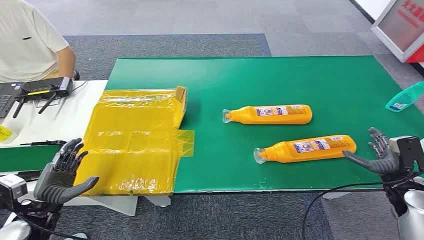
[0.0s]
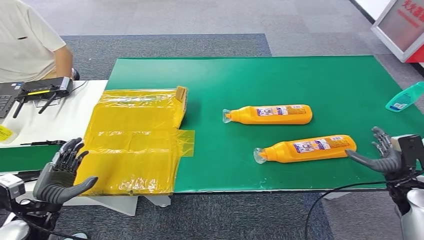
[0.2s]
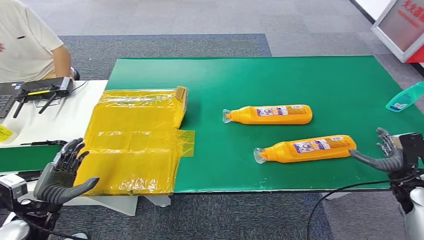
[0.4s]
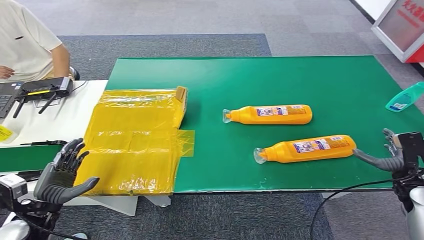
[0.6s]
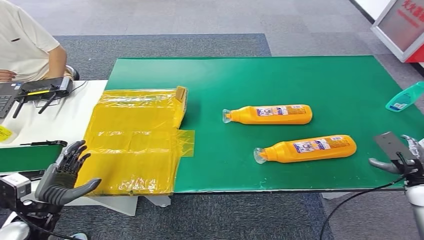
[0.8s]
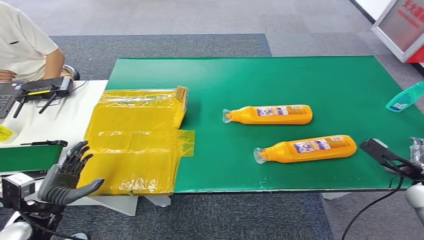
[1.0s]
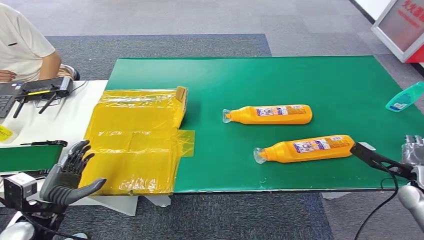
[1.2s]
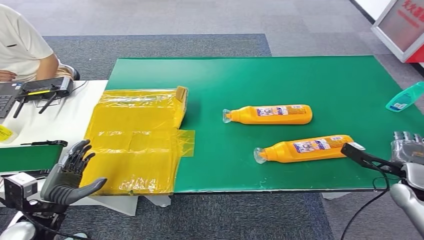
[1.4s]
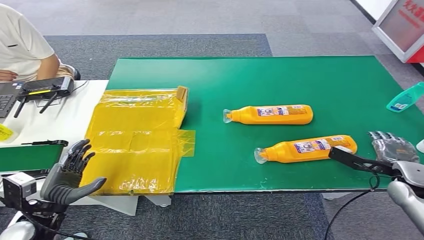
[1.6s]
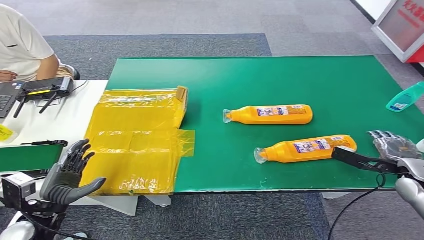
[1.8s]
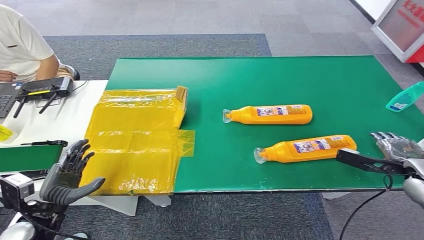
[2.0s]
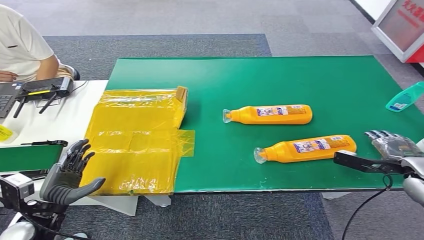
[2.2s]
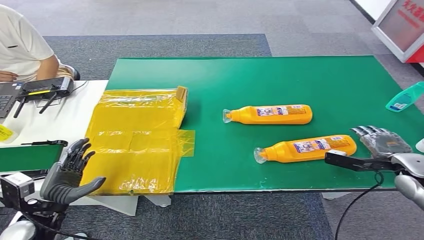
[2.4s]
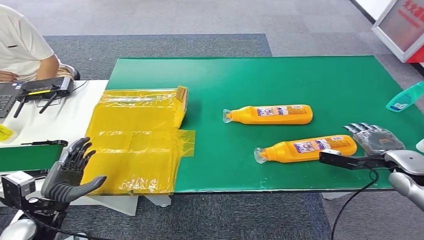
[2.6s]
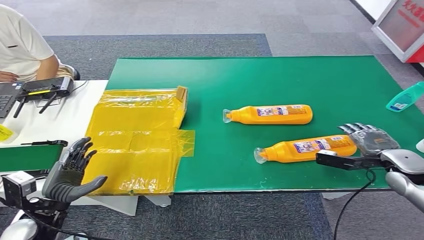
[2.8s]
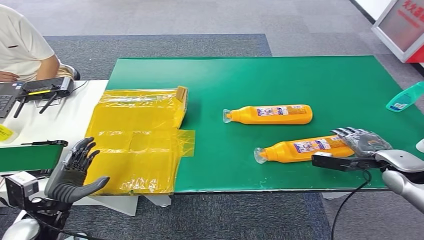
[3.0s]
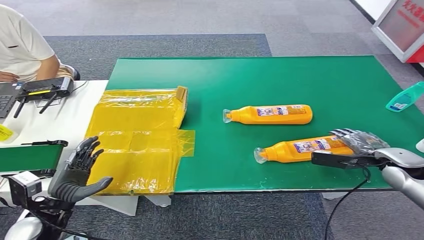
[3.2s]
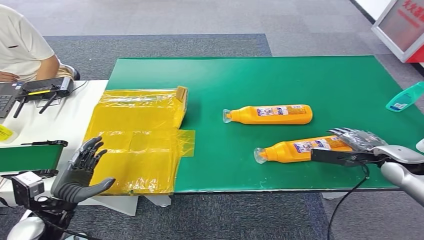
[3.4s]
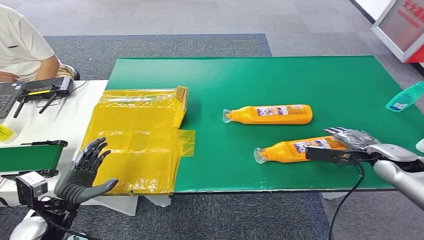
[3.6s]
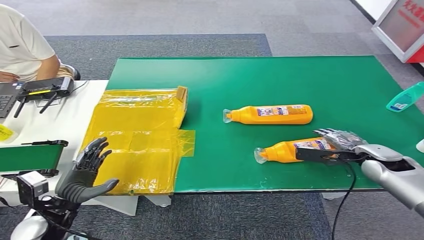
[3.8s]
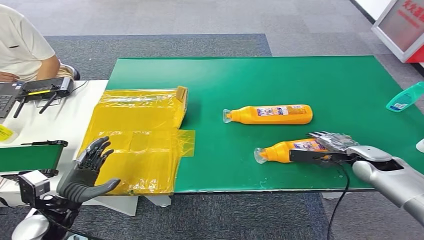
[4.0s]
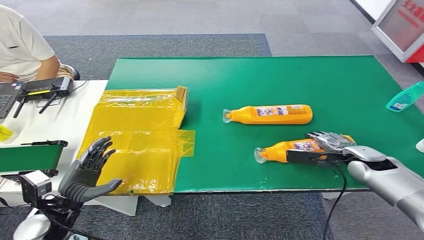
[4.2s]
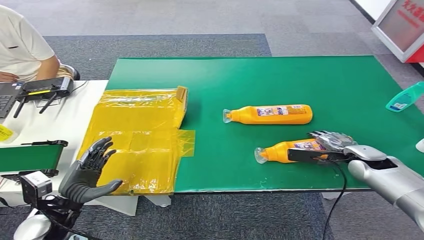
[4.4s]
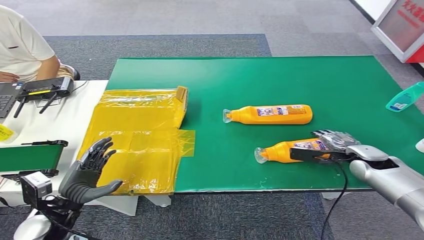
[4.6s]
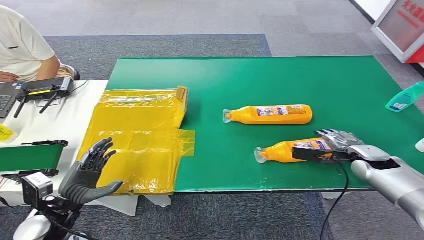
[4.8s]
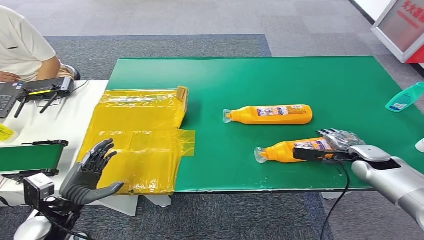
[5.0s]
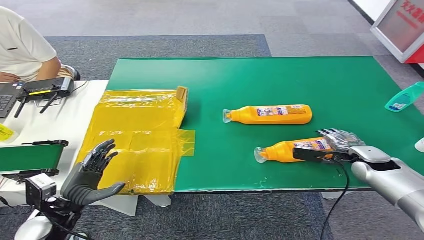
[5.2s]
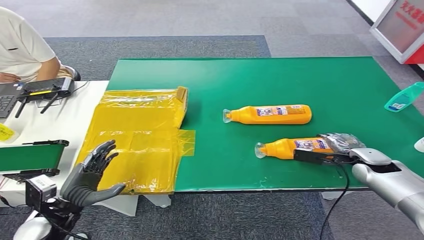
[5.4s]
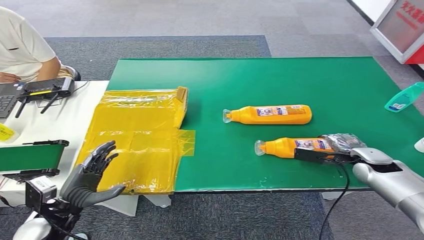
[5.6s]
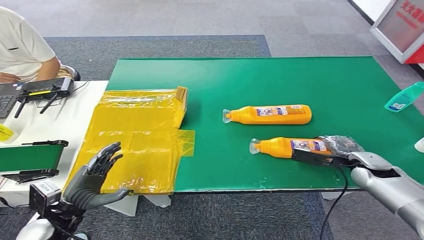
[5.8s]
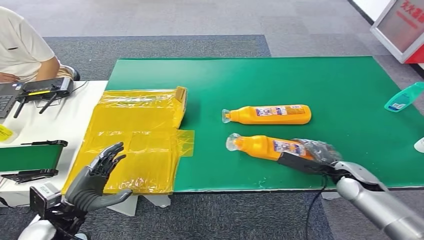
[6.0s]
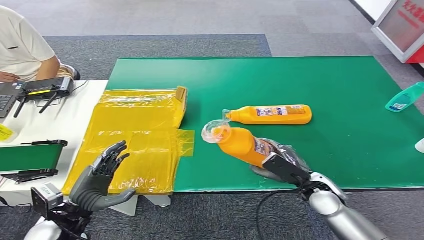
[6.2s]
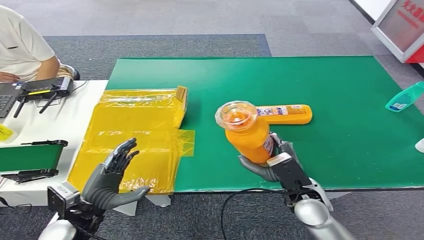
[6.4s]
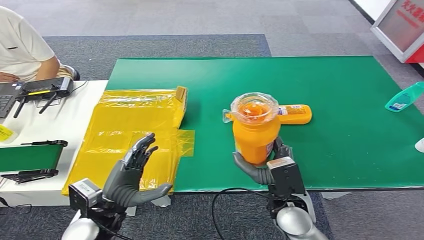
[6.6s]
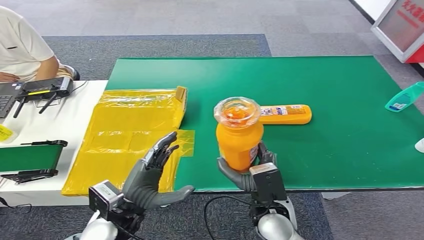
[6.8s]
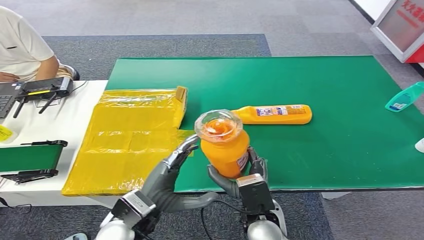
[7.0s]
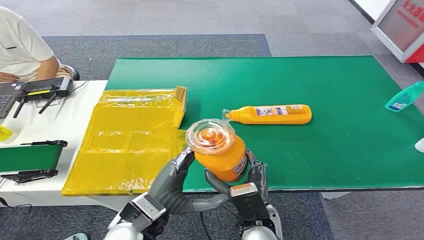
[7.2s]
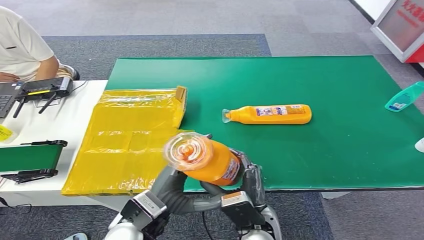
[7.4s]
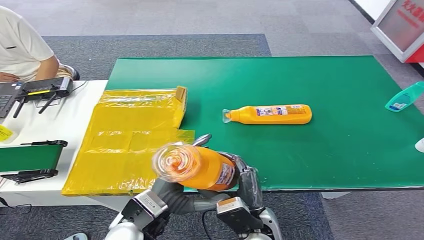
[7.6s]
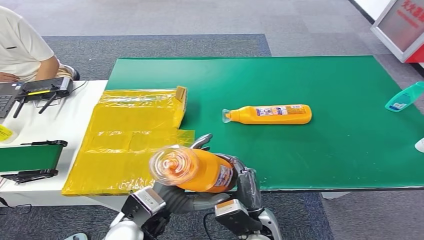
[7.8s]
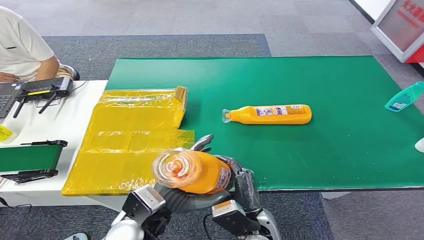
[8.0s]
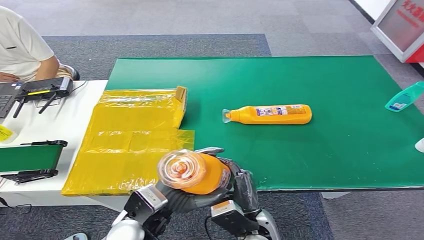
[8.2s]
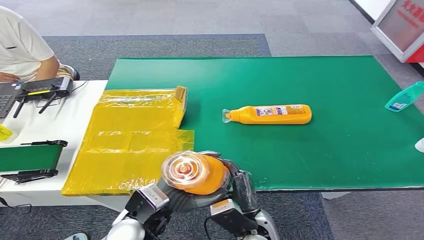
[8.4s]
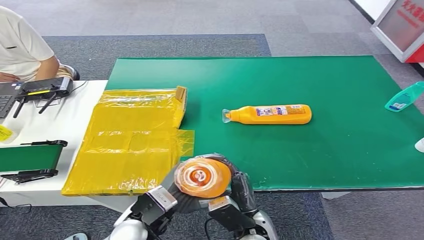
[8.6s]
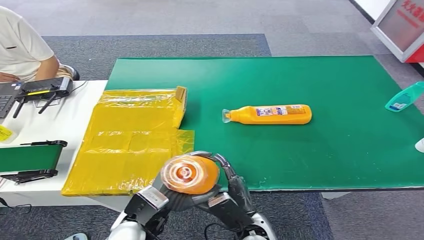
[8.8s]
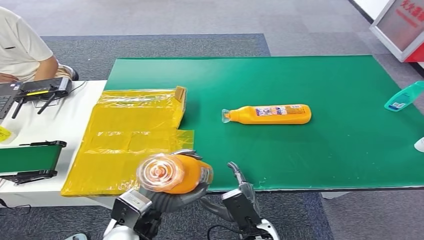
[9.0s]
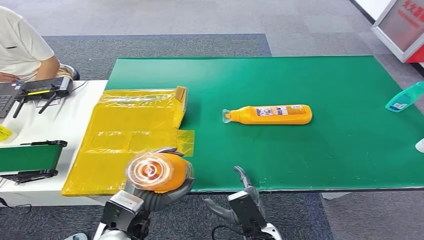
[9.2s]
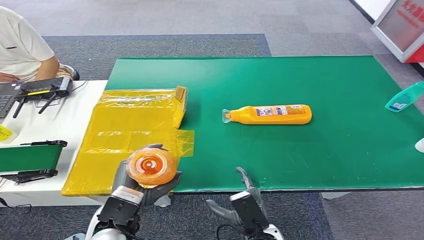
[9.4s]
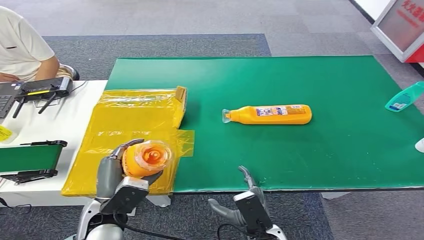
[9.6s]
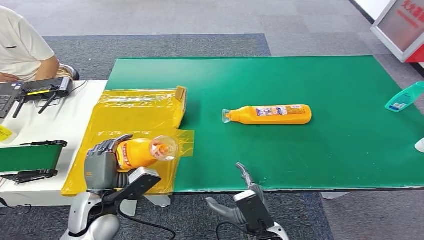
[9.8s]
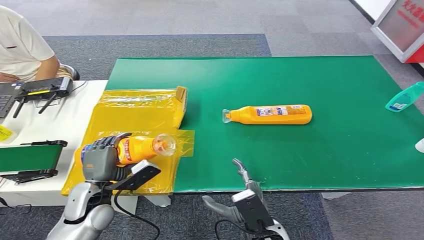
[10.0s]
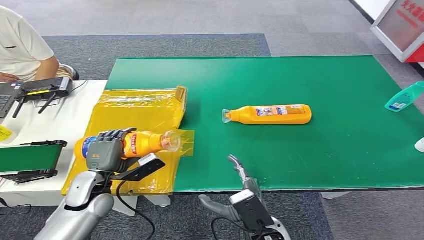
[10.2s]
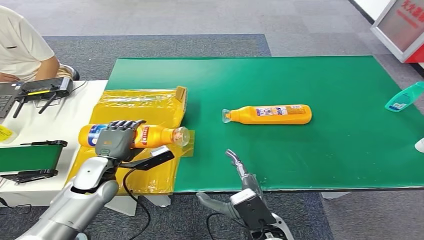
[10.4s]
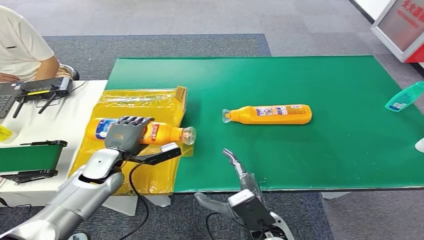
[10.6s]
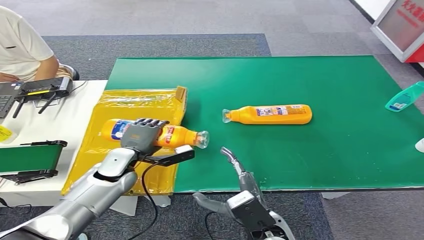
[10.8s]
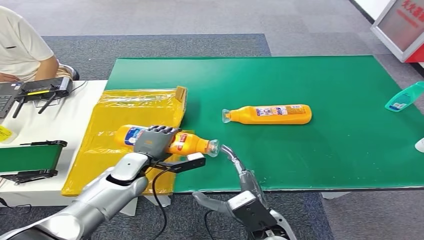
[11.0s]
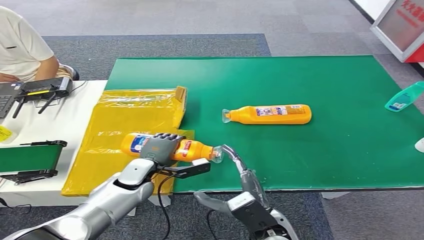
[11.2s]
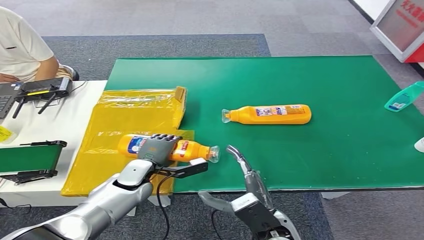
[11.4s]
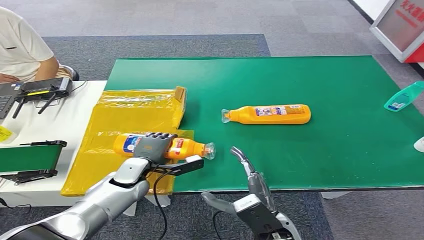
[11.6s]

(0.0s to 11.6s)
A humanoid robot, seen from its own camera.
Step, 0.0s - 7.0s: Pick up the bottle from the table.
1.4s - 2.8s: The right hand shifts by some 5 cm.
2.8s - 4.4s: The right hand heads to the left, covering approximately 5 cm.
4.4s - 5.8s: The hands move only a little.
7.2s - 8.8s: The right hand ends up about 5 cm from where it was.
8.8s - 10.2s: The left hand heads to the left and forward, covering roughly 15 cm.
10.2s - 11.6s: The left hand travels to the right and forward by about 10 cm.

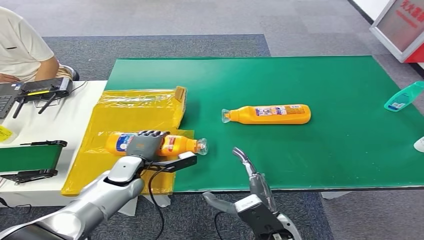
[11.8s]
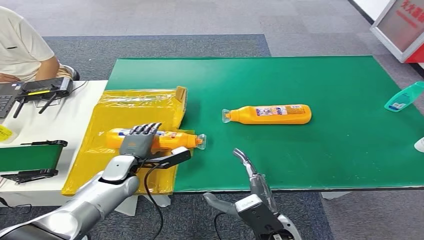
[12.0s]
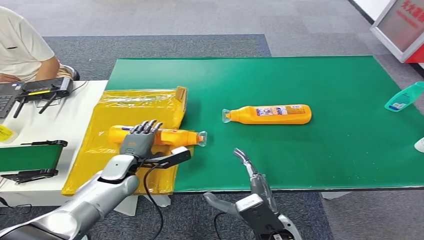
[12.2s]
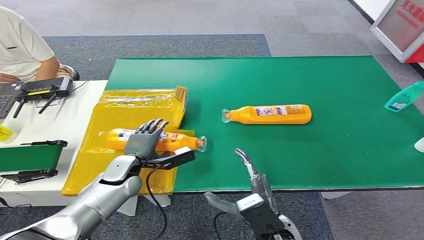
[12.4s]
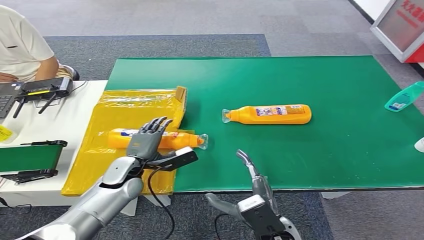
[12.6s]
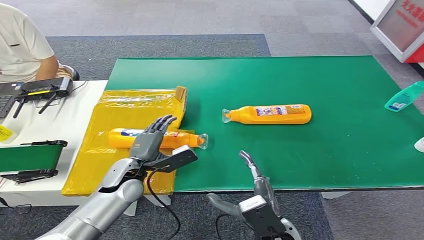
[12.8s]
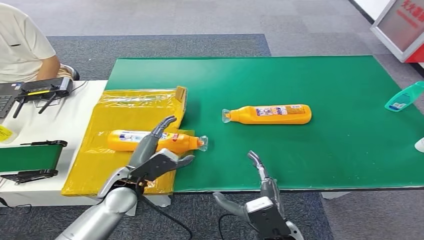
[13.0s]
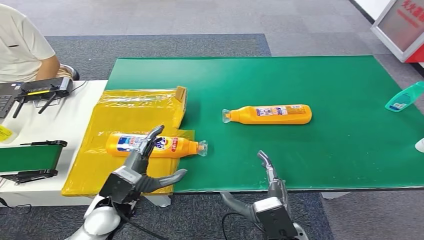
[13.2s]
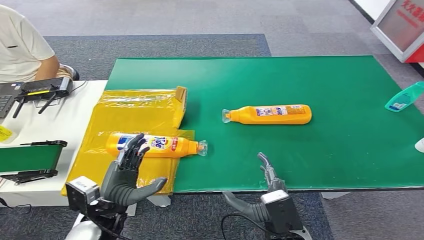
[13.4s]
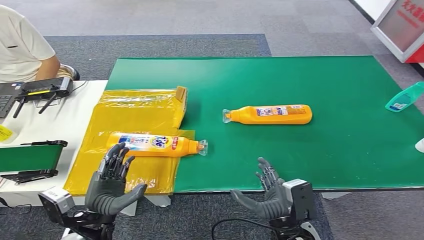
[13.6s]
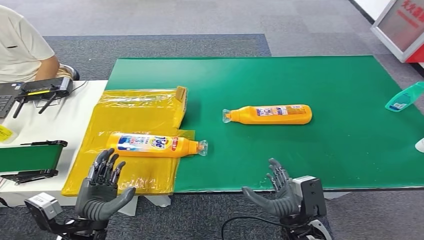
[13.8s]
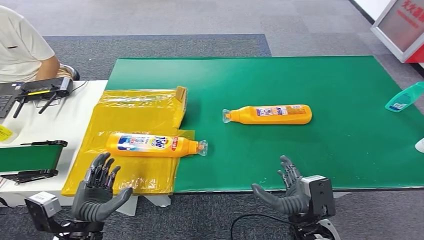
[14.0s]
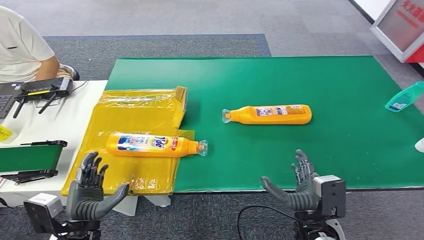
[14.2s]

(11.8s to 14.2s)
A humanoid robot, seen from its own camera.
Step, 11.8s - 14.2s: Turn the bottle to the front side.
11.8s - 13.0s: The left hand heads backward and upward, covering roughly 10 cm.
13.0s - 14.2s: The right hand is displaced to the right by about 5 cm; the left hand shifts roughly 15 cm backward and to the left.

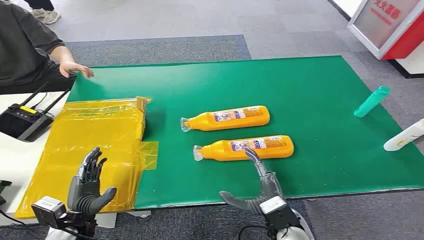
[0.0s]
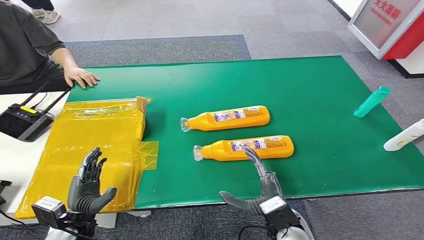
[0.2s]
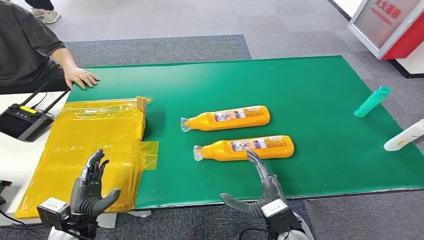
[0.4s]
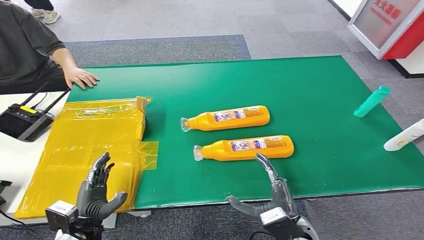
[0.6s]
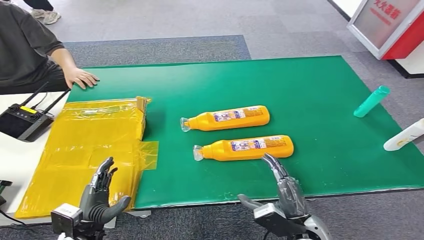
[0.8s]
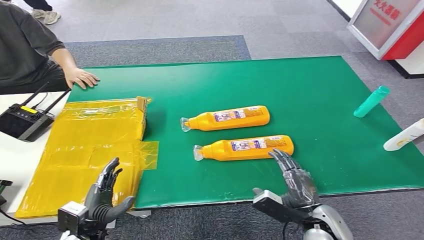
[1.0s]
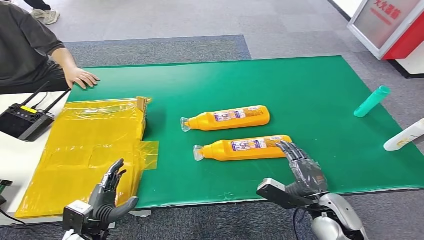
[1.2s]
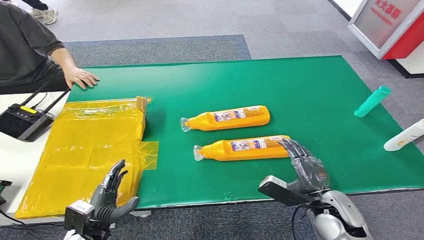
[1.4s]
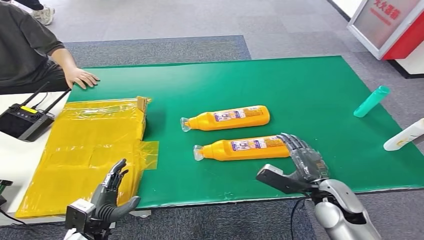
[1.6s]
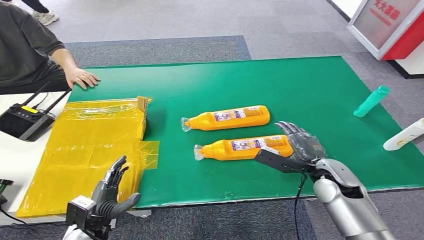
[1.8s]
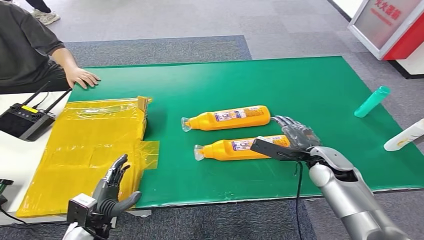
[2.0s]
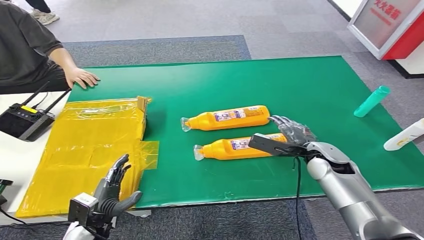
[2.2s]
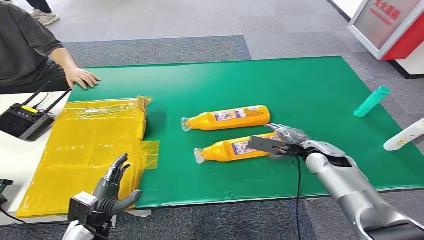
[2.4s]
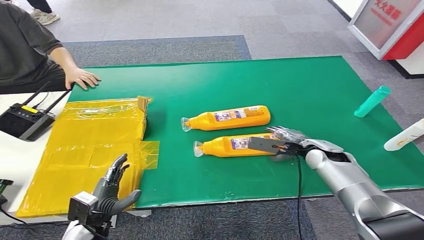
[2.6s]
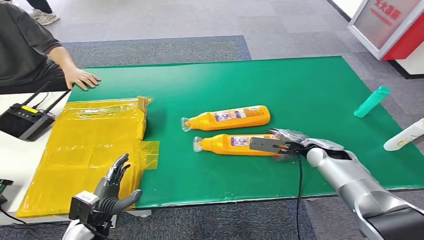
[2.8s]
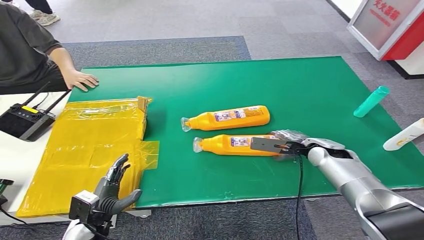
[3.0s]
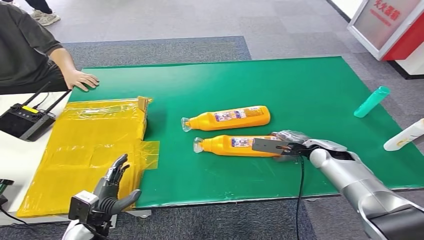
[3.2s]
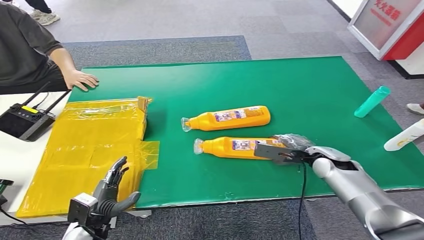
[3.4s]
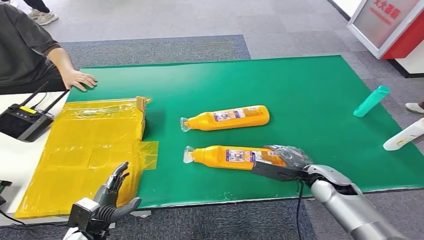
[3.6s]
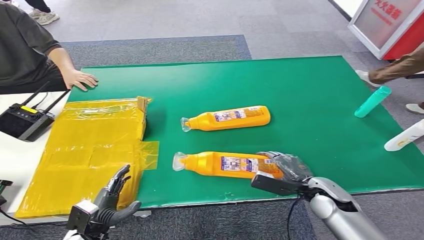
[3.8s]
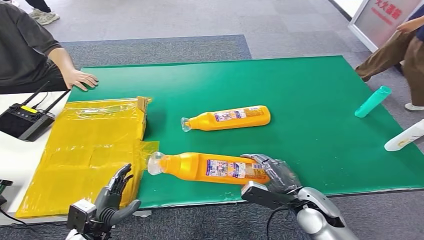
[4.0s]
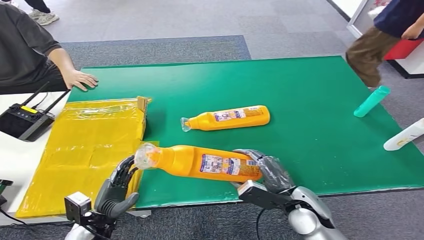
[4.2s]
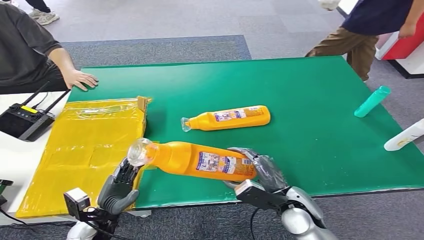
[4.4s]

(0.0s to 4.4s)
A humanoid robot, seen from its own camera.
Step, 0.0s - 4.2s: Pick up the bottle from the table.
1.4s - 3.0s: The right hand shifts roughly 20 cm forward.
